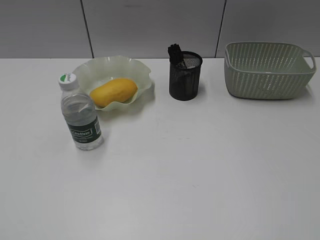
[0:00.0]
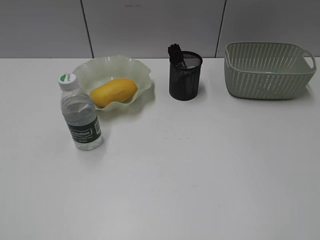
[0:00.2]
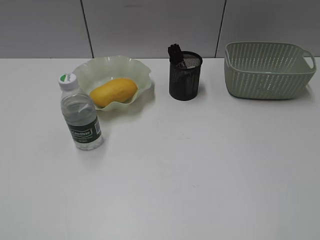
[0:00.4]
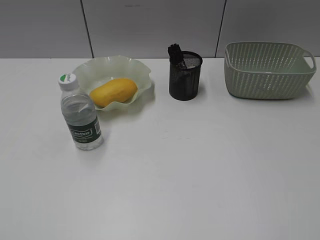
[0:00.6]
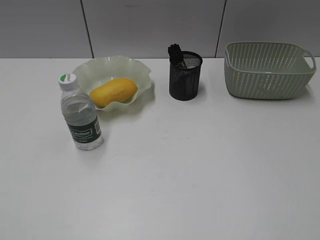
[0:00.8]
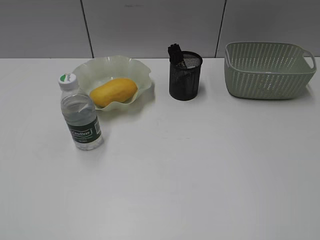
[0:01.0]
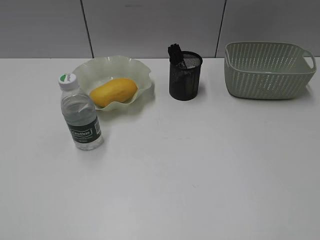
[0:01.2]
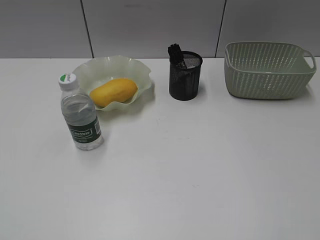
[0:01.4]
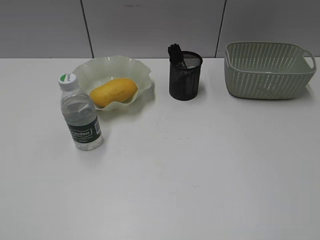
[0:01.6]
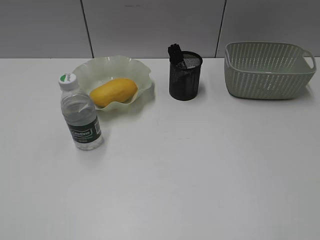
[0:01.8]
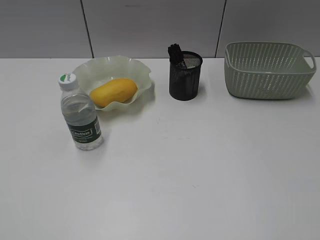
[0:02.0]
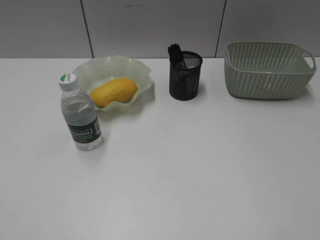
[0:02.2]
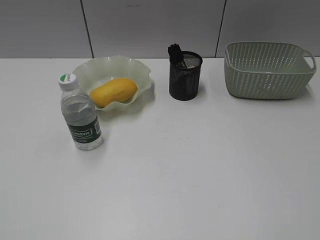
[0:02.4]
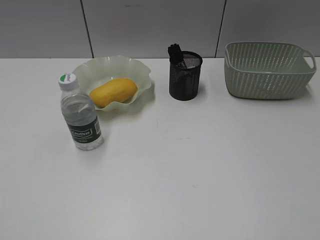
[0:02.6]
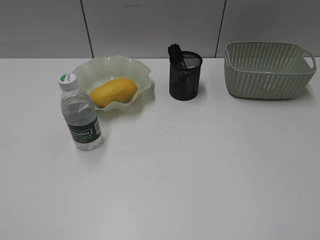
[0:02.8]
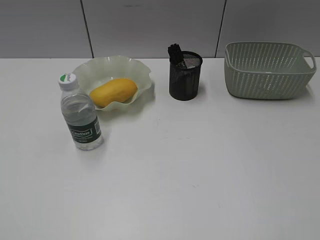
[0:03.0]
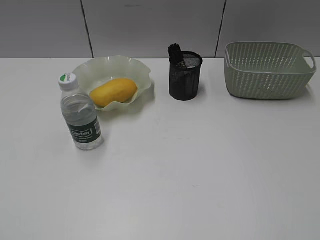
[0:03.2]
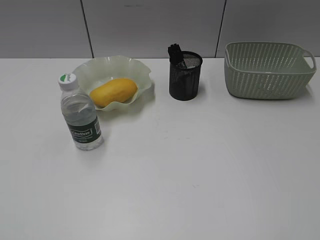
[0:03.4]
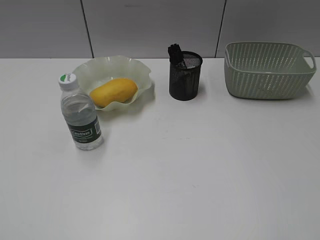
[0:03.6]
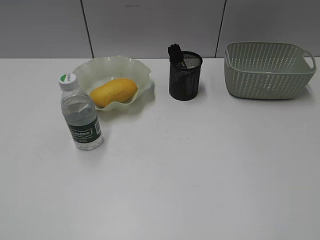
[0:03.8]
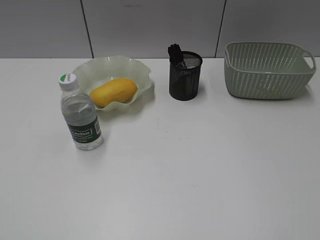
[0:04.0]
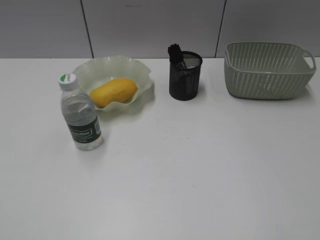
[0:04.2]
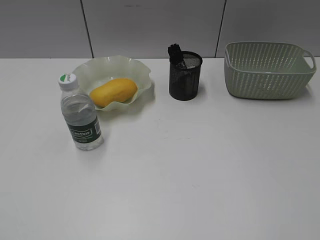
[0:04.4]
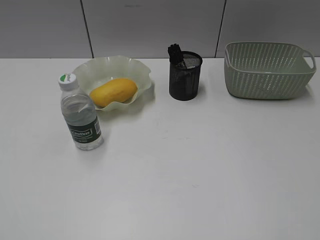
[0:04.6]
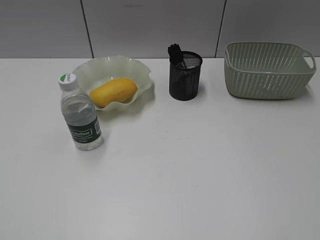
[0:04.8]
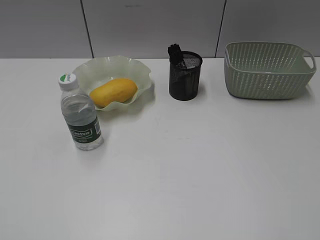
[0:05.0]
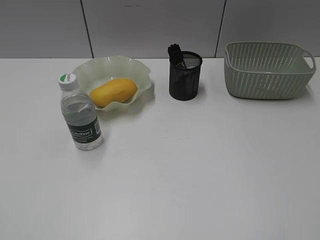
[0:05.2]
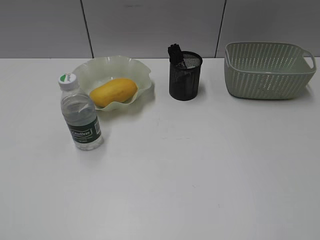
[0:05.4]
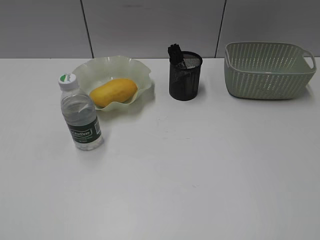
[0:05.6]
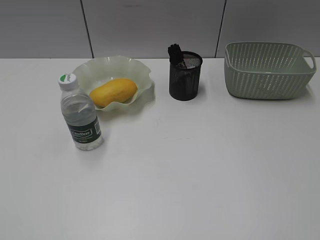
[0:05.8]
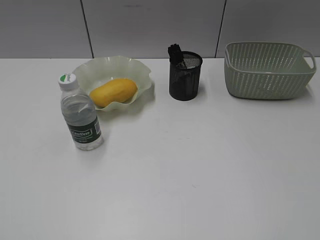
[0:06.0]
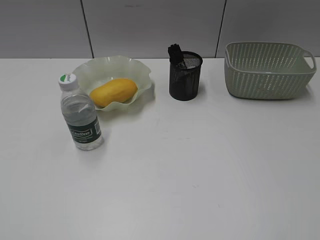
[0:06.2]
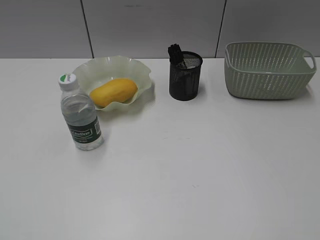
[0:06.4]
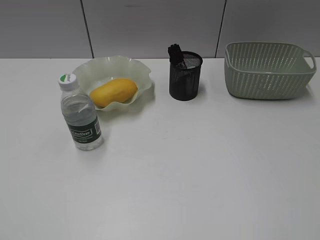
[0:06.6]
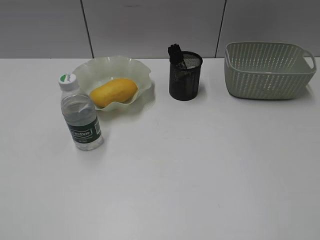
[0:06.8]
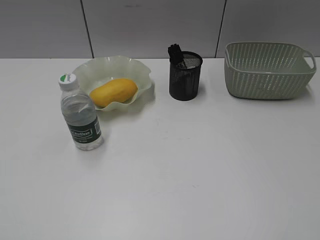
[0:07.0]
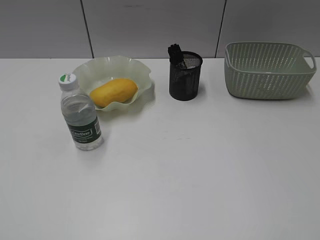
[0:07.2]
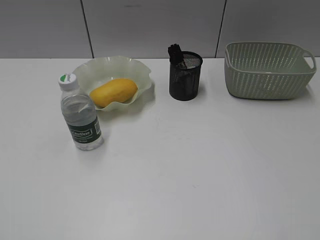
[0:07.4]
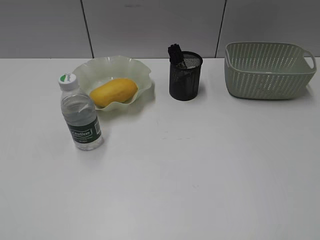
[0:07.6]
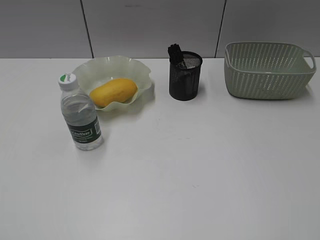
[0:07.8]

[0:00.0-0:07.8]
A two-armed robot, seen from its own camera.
0:00.0 to 0:07.8: The two grippers keep their place.

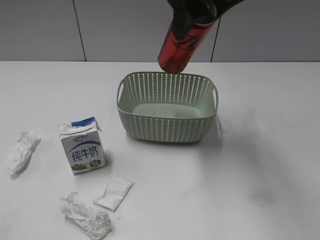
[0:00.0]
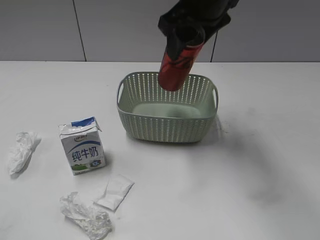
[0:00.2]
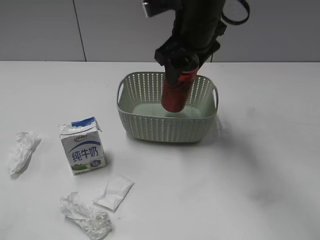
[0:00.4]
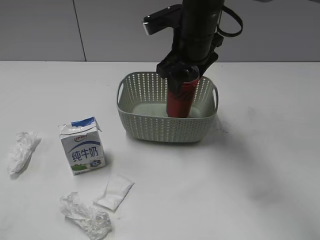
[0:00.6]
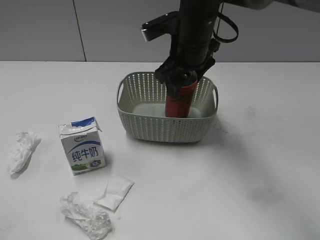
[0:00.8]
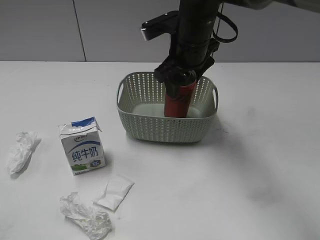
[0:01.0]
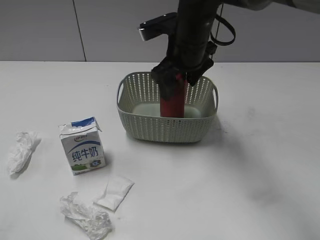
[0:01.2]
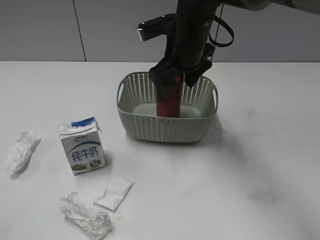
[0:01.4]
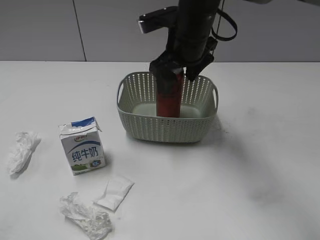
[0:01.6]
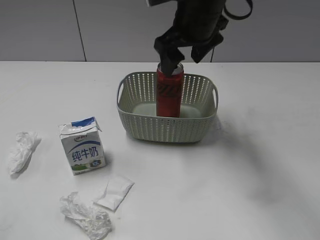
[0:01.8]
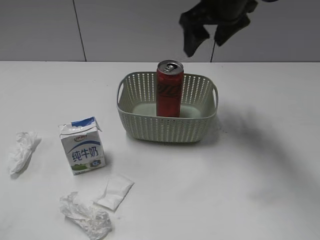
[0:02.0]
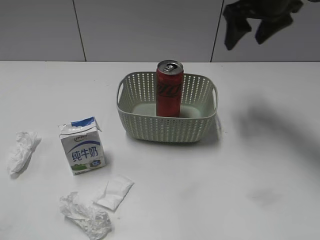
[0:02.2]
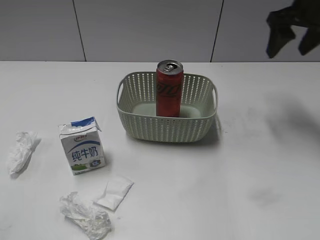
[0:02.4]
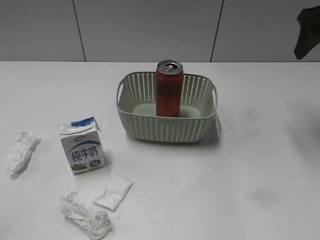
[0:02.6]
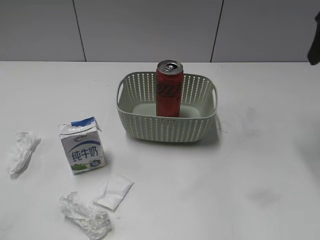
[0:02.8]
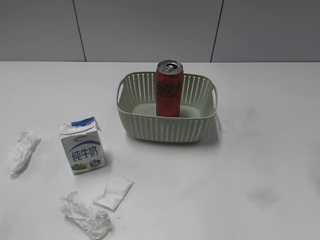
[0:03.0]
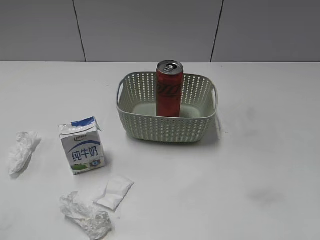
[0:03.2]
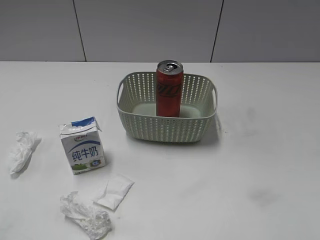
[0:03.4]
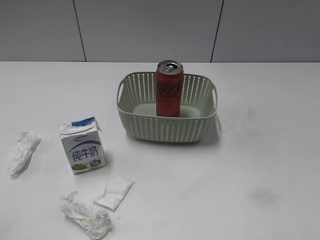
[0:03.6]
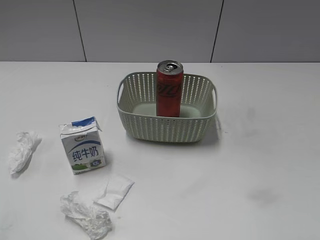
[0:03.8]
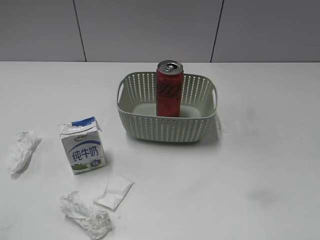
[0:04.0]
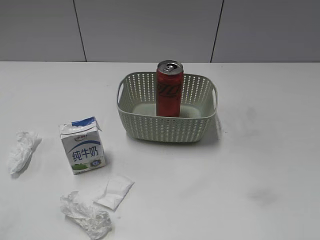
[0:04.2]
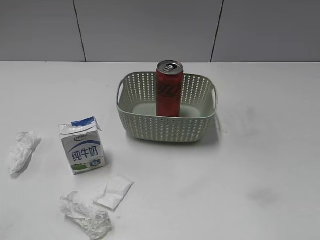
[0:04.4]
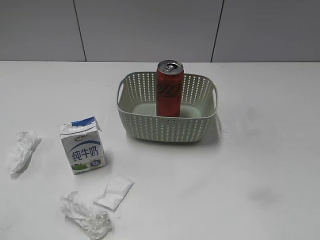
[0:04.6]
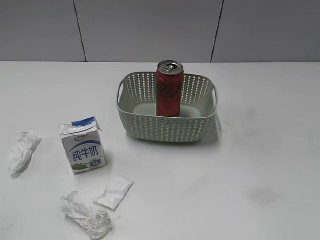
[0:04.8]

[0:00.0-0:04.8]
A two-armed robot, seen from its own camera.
Step, 0:00.0 to 0:01.8: Place the cola can in the basket with right gripper.
0:00.0 to 0:01.6: The right gripper moves downward and forward, some 15 cm, and opens.
0:01.6 to 0:03.2: The right gripper goes about 30 cm to the right and backward, and closes.
